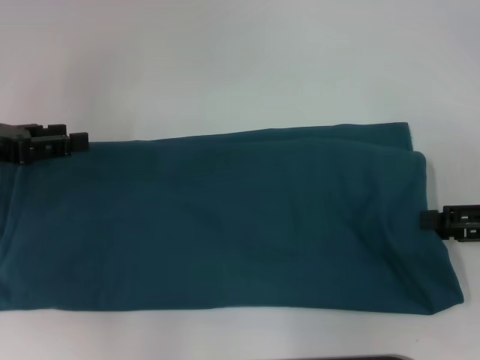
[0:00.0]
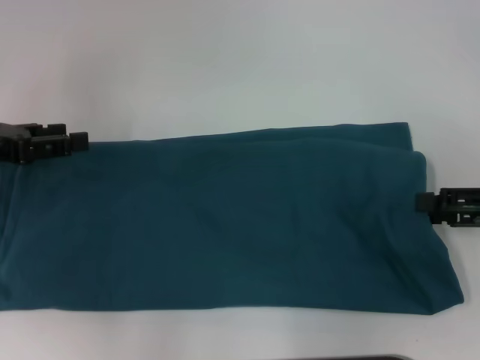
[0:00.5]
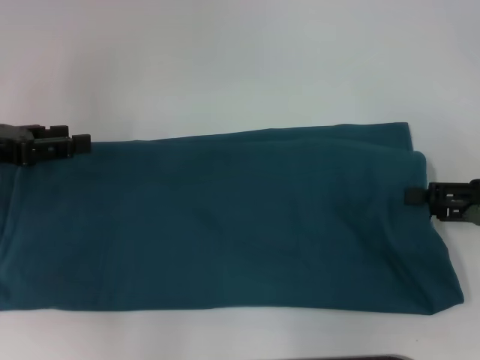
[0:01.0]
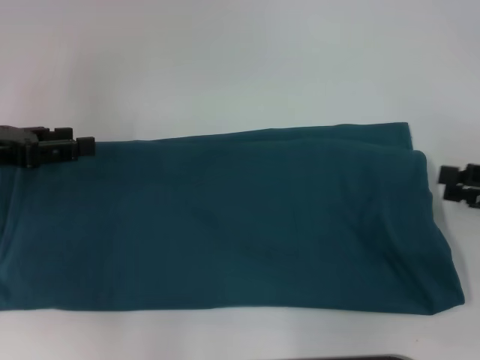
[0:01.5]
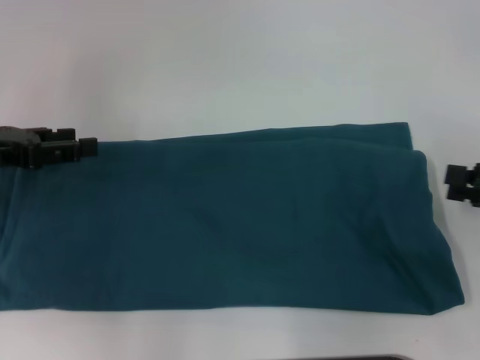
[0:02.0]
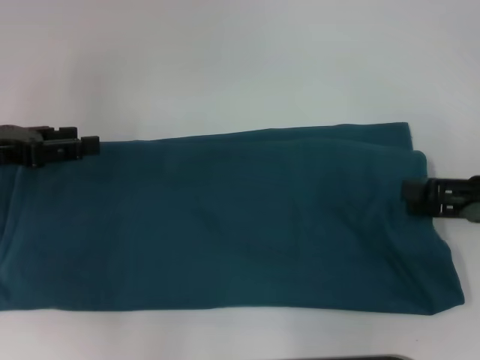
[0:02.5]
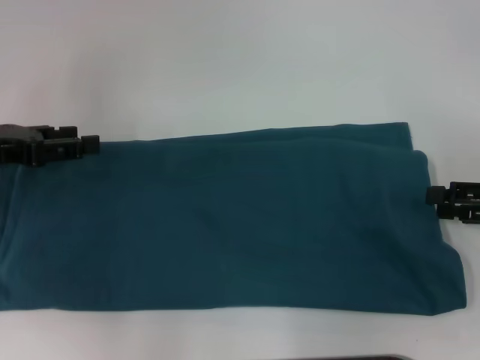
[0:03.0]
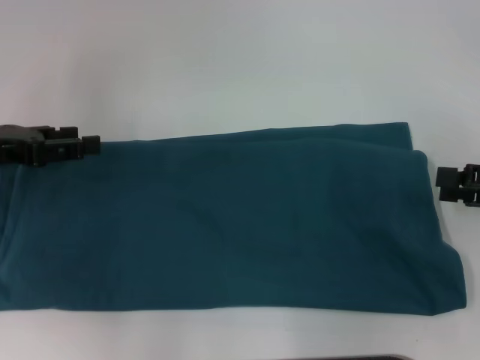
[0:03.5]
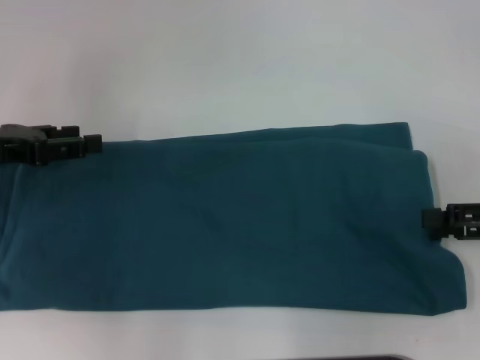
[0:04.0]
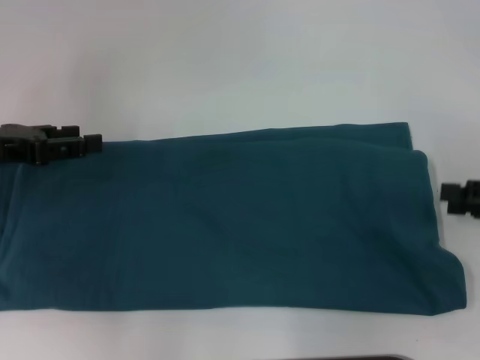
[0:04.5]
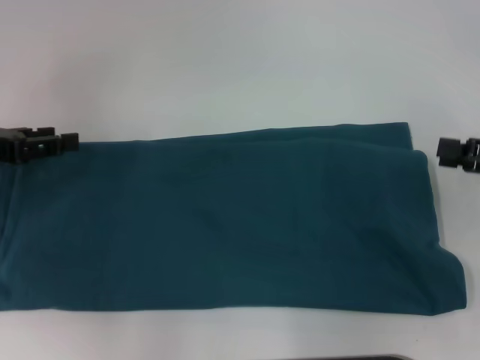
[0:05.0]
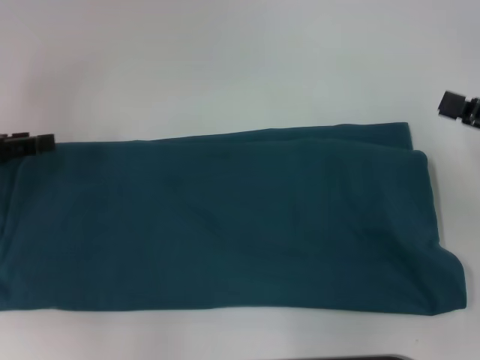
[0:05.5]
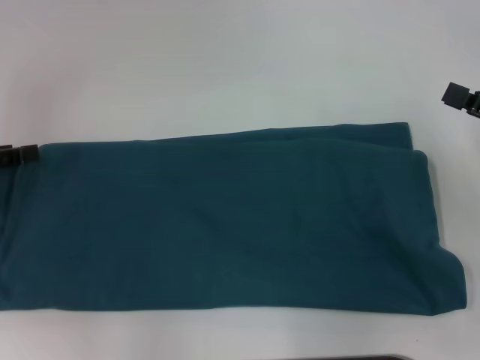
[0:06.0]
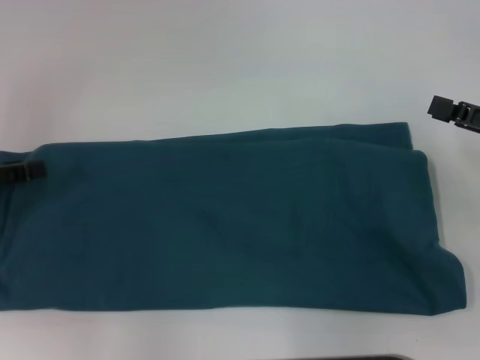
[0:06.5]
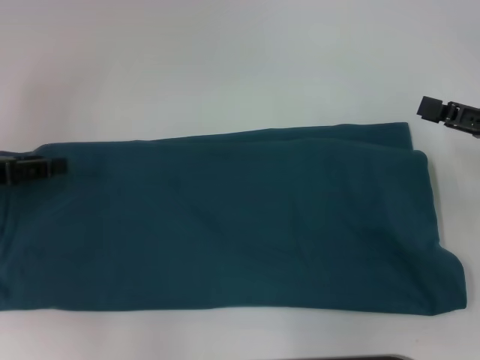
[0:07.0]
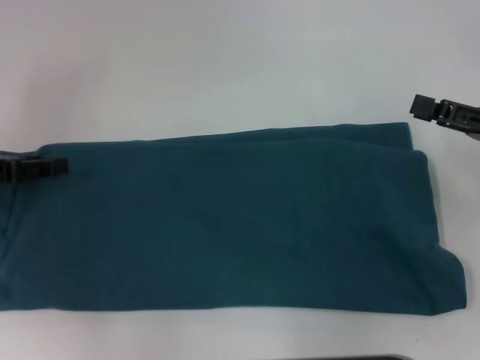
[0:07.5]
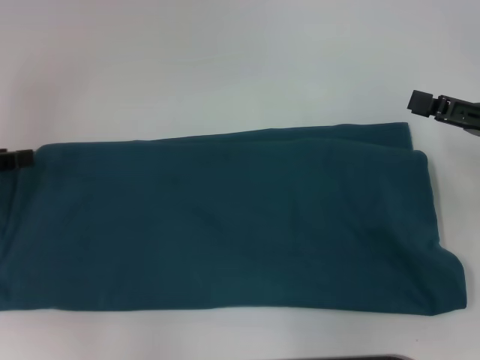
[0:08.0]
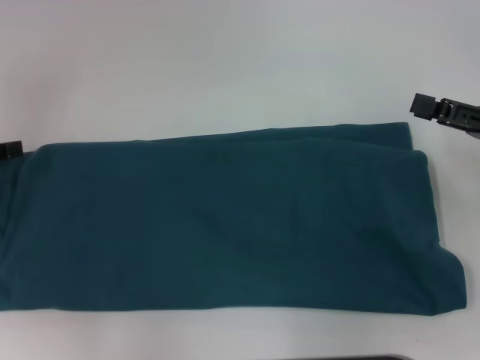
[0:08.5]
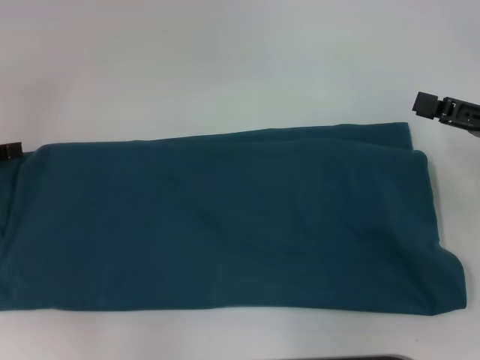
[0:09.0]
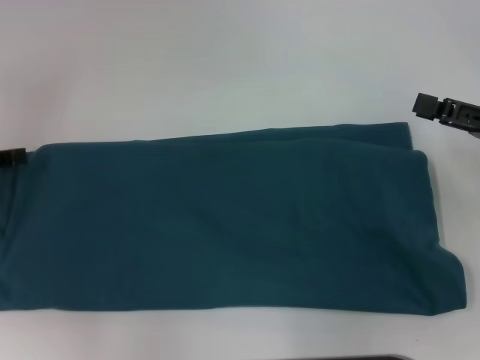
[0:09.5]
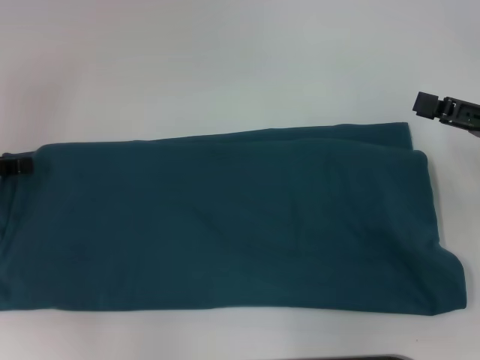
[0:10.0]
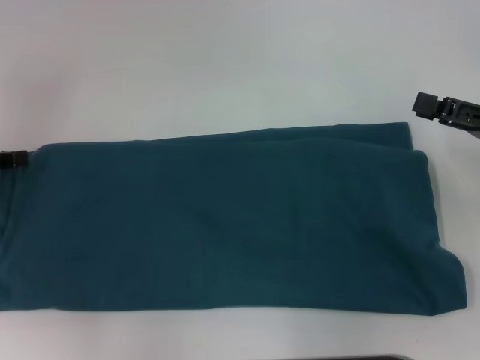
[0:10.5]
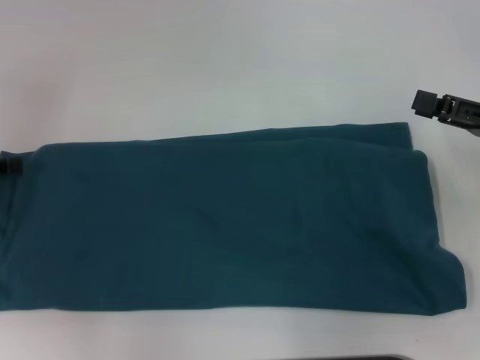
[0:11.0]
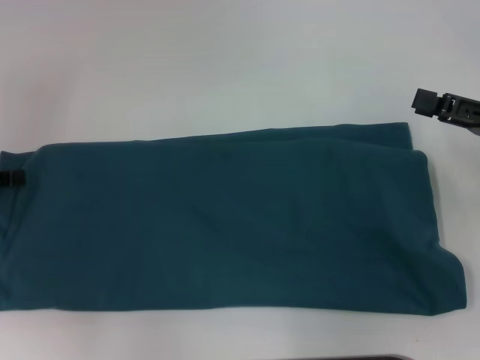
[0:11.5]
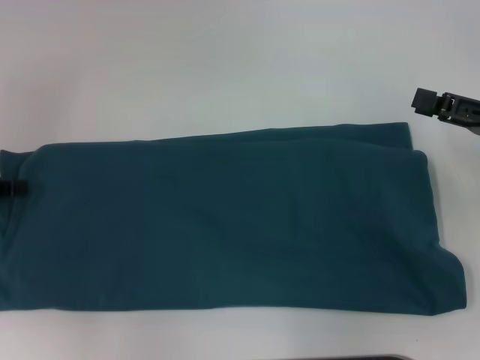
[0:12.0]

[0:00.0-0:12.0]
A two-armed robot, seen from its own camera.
0:00.0 to 0:04.0: The grippers make only small movements.
0:04.0 to 0:06.0: The left gripper shifts by about 5 cm.
0:06.0 to 0:08.0: The grippers move only a little.

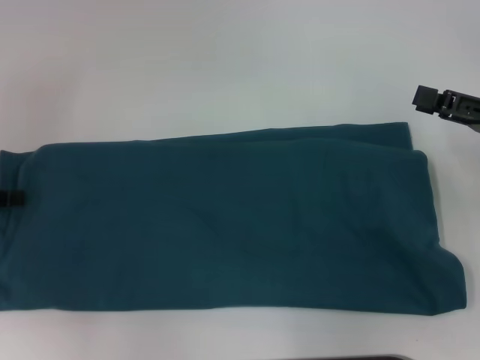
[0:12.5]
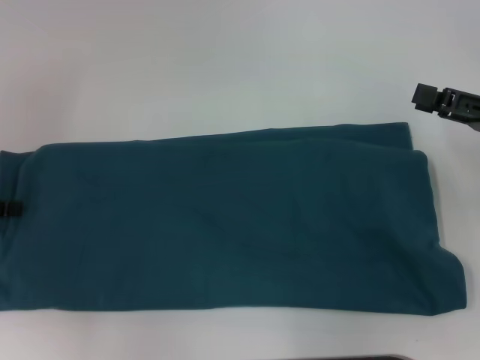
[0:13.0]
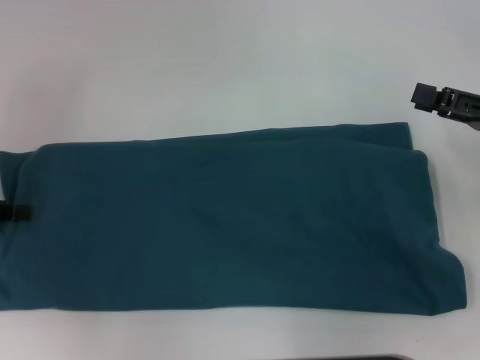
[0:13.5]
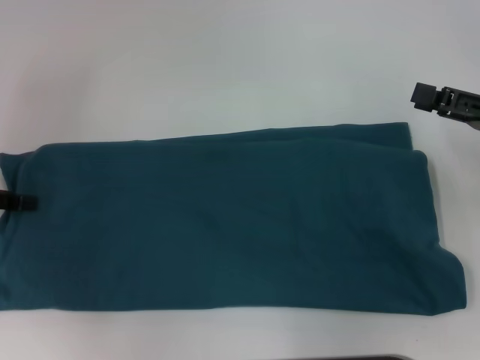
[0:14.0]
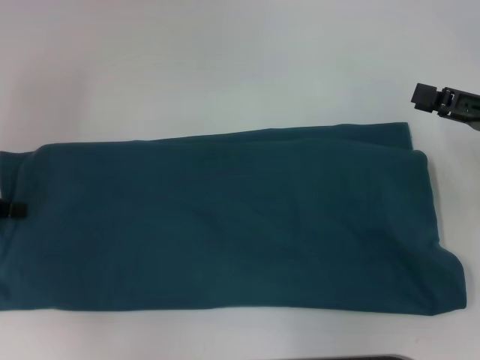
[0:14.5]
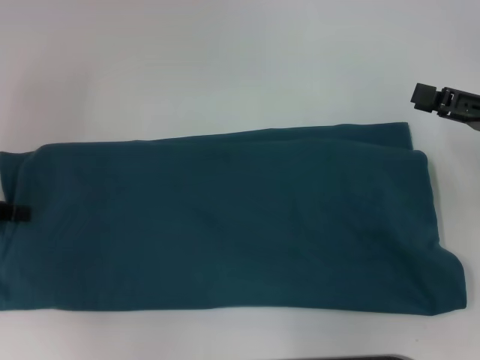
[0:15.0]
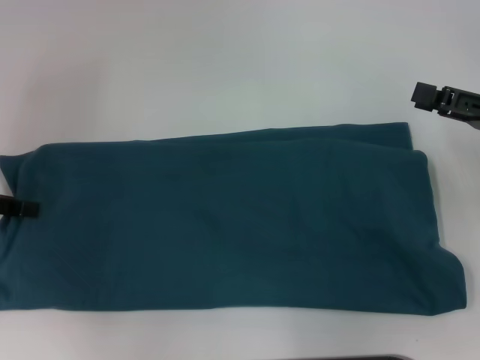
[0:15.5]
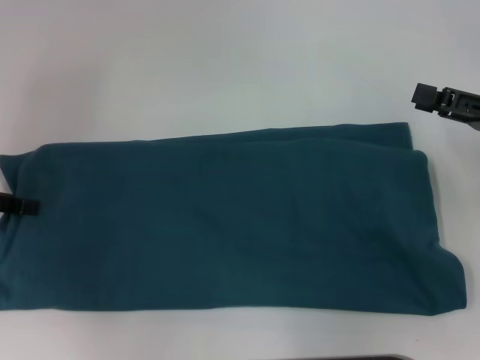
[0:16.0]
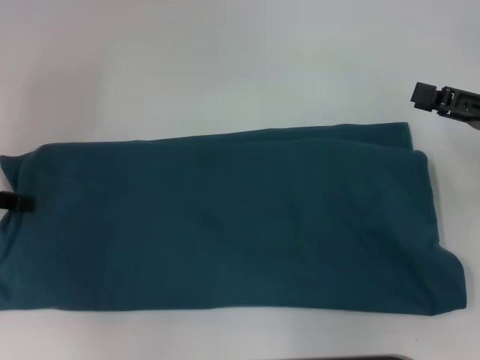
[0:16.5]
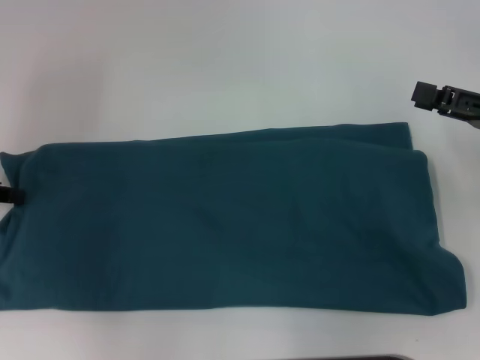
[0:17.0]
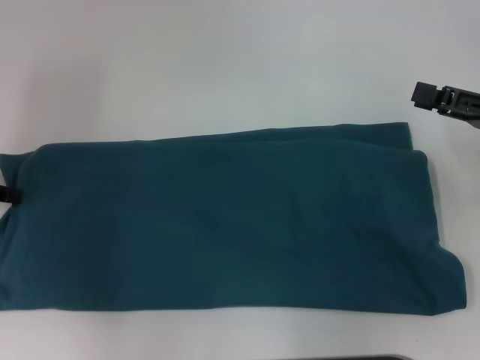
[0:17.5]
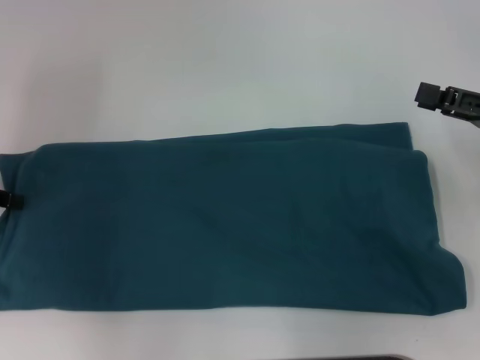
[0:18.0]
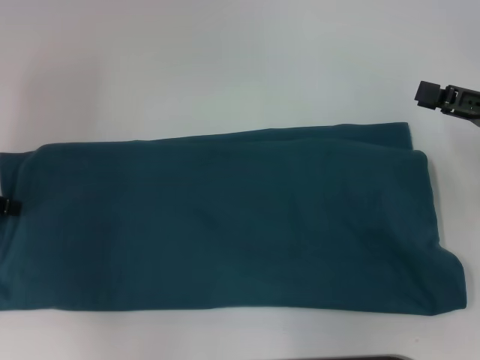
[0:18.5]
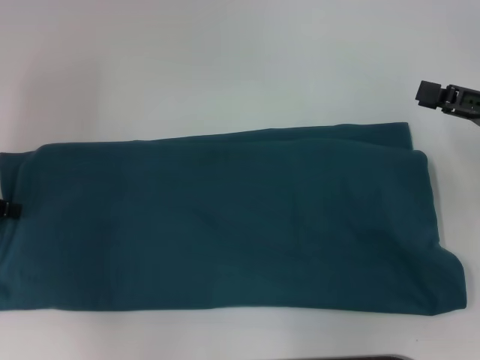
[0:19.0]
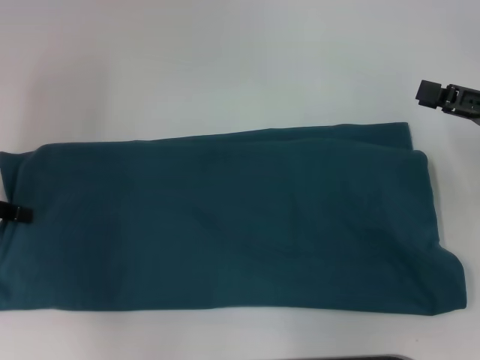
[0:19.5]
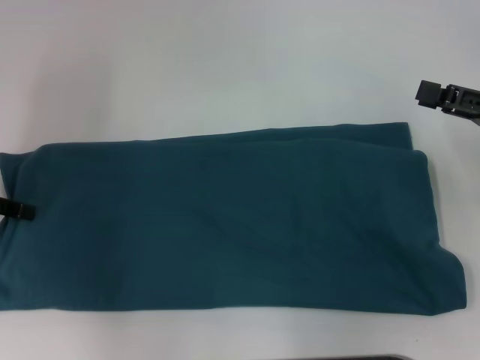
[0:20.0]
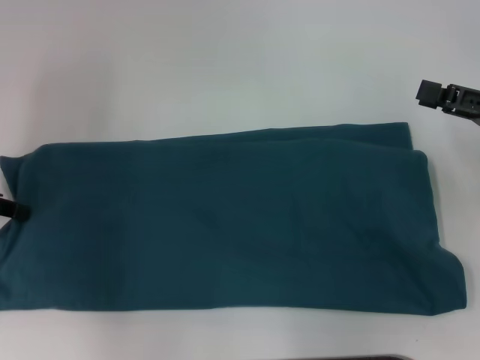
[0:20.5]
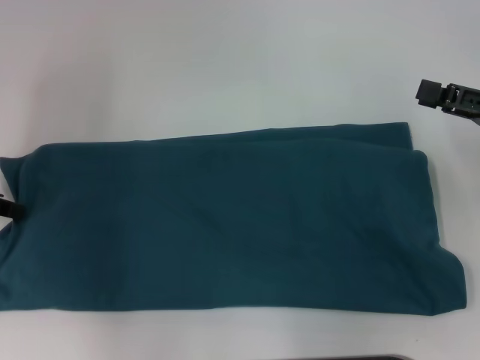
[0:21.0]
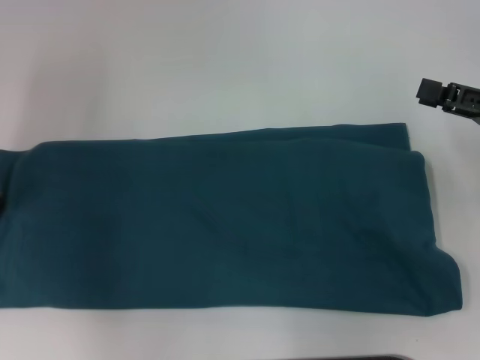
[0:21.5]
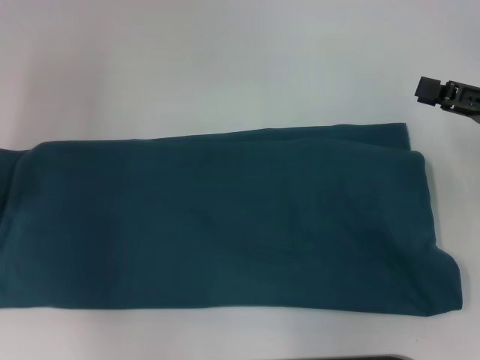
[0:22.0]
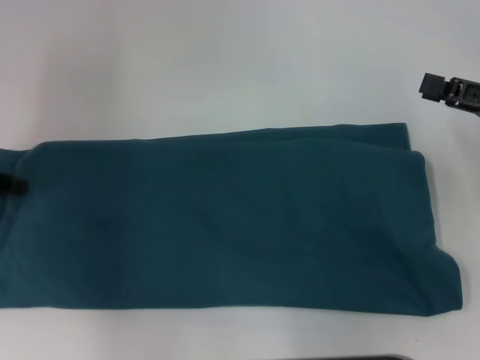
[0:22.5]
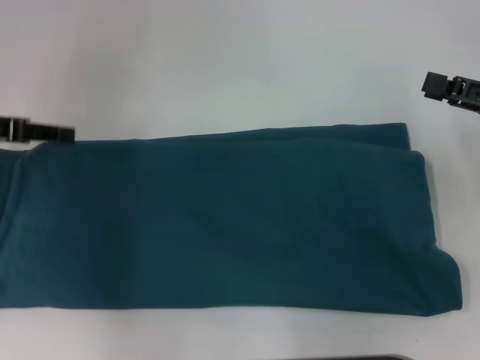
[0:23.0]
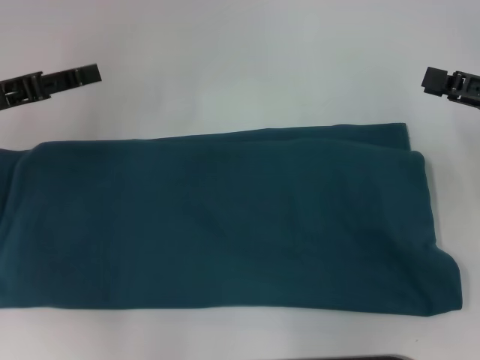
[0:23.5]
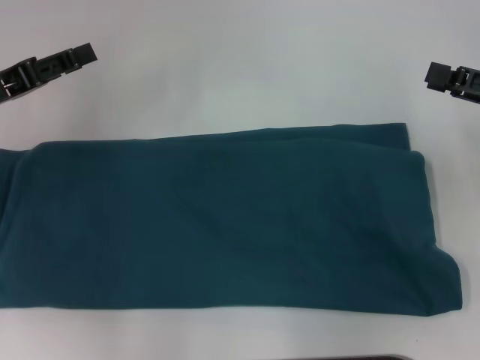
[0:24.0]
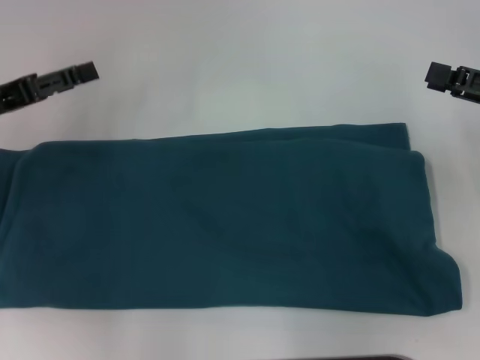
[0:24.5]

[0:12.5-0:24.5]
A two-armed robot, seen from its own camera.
0:20.5 to 0:22.5: The grippers move only a little.
0:22.5 to 0:24.5: The left gripper opens its fingers.

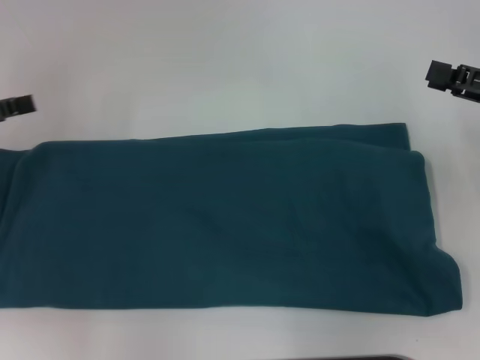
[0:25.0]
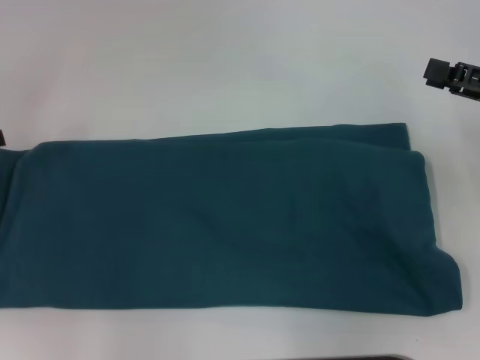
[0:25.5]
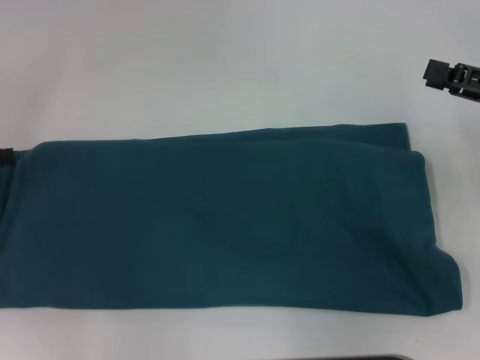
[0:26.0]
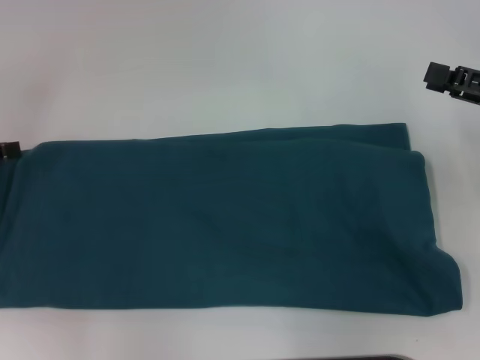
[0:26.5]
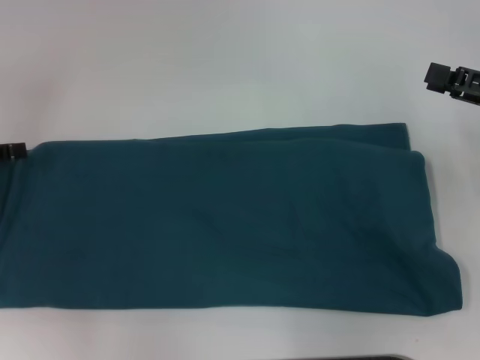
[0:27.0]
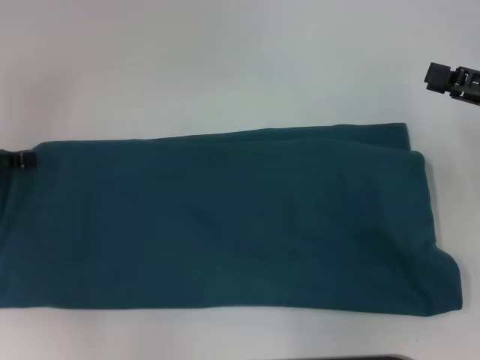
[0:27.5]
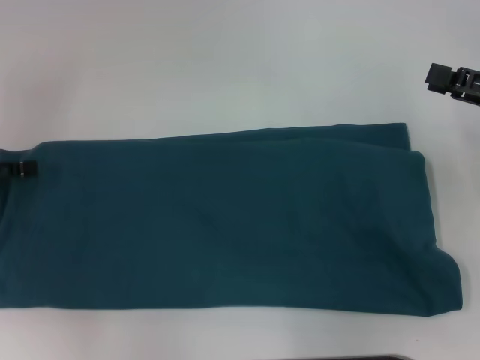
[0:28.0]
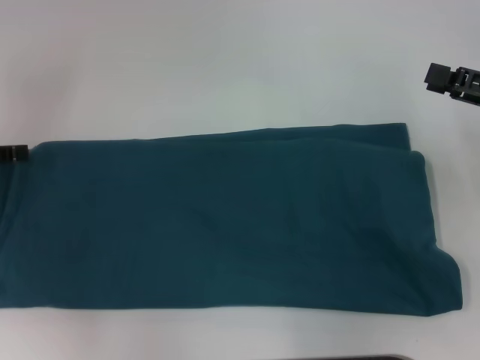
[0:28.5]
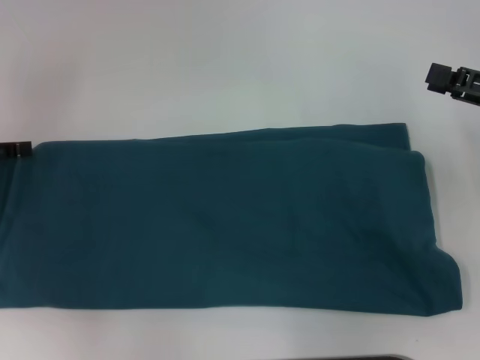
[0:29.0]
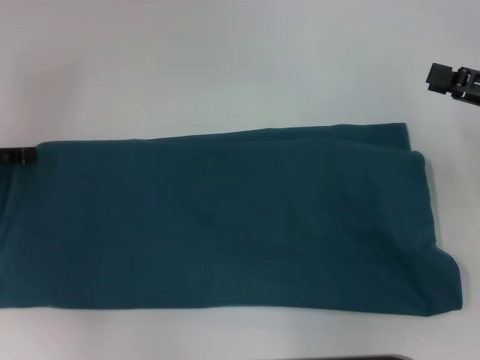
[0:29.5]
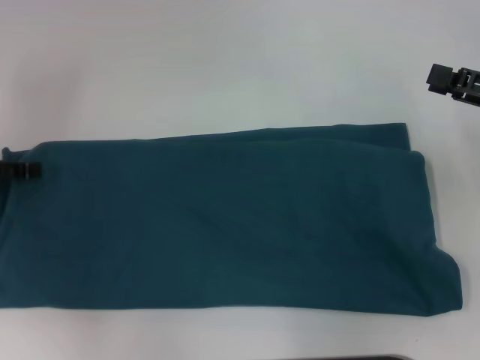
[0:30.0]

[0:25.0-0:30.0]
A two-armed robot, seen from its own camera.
0:25.0 to 0:27.5: The grippers stay close to where they were, moving slightly.
0:27.5 to 0:30.0: The two grippers keep their place.
